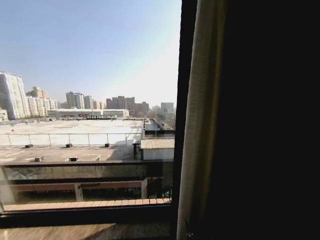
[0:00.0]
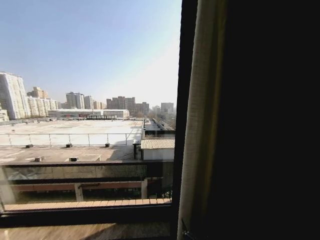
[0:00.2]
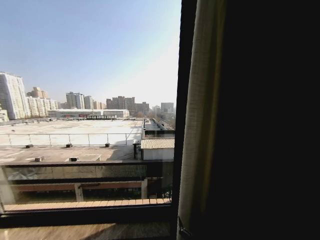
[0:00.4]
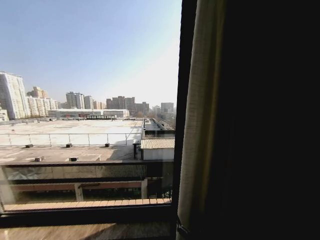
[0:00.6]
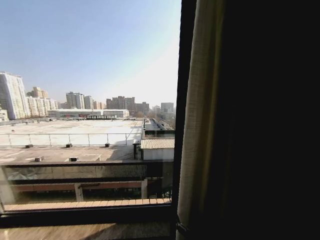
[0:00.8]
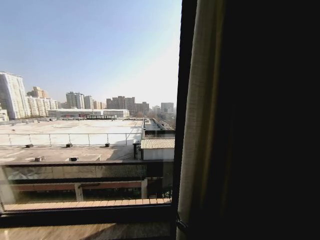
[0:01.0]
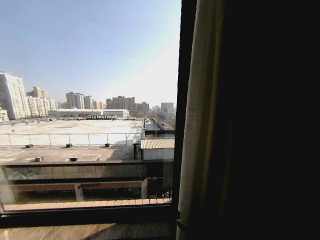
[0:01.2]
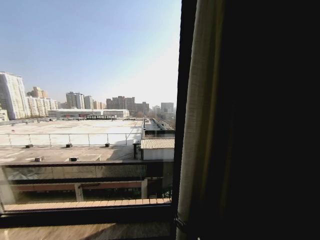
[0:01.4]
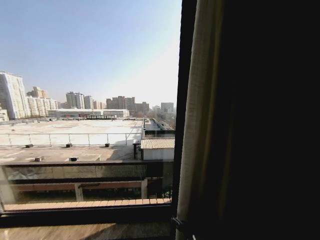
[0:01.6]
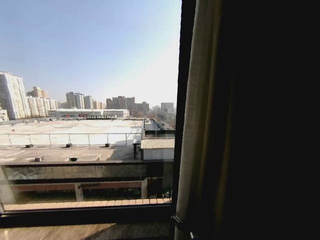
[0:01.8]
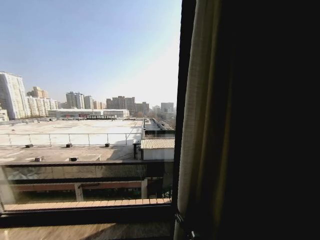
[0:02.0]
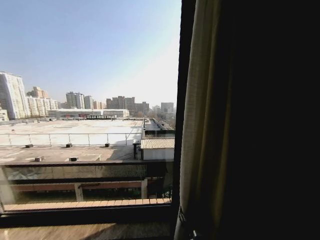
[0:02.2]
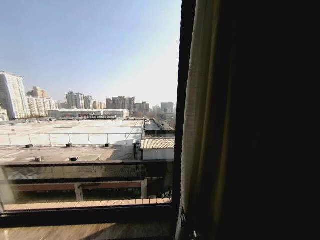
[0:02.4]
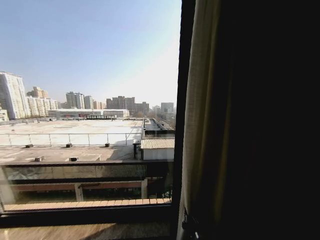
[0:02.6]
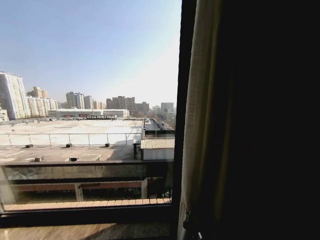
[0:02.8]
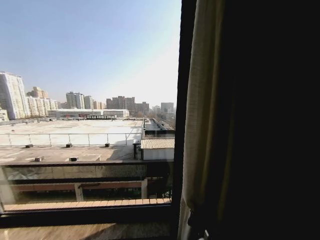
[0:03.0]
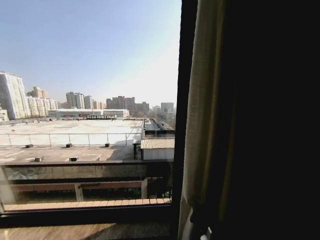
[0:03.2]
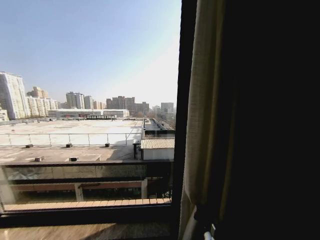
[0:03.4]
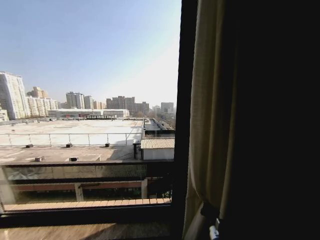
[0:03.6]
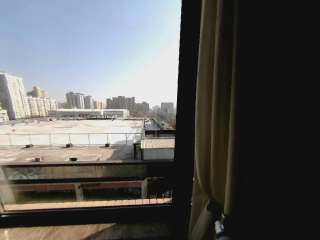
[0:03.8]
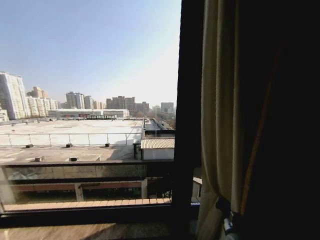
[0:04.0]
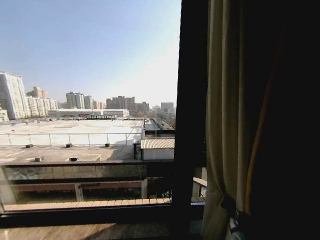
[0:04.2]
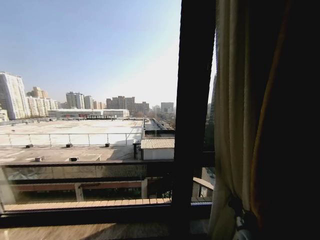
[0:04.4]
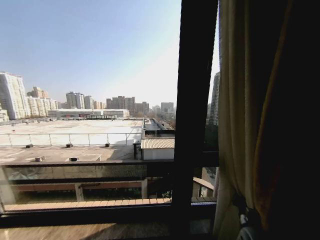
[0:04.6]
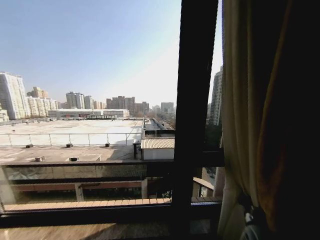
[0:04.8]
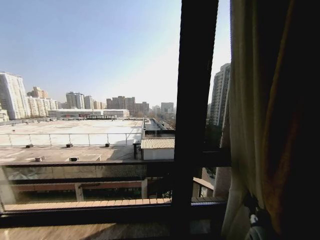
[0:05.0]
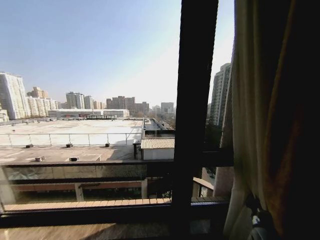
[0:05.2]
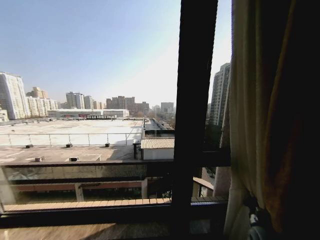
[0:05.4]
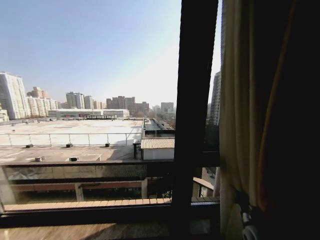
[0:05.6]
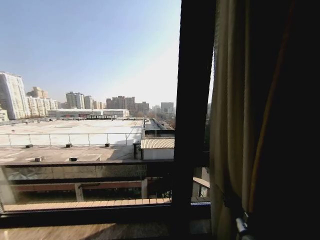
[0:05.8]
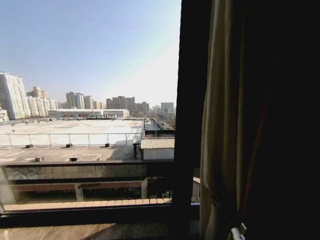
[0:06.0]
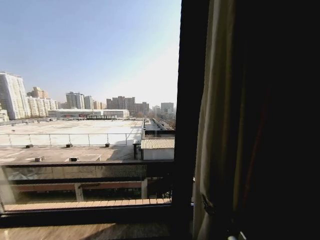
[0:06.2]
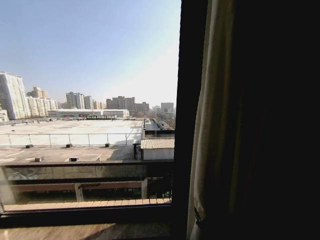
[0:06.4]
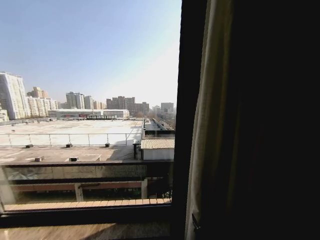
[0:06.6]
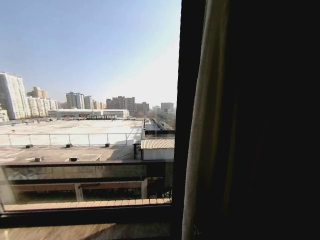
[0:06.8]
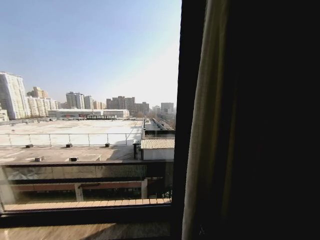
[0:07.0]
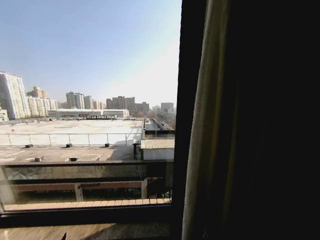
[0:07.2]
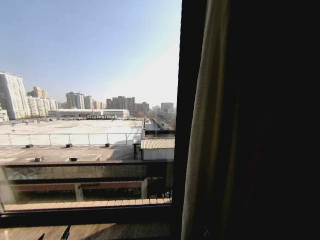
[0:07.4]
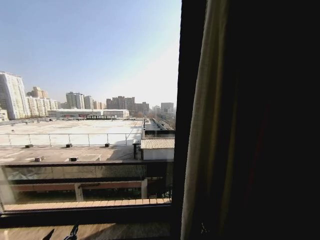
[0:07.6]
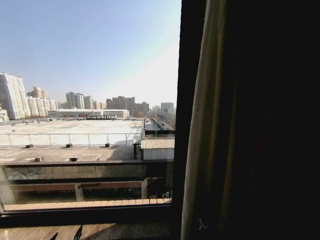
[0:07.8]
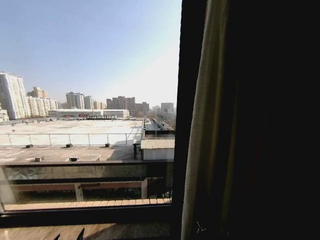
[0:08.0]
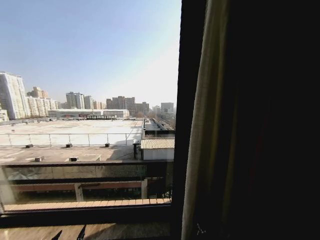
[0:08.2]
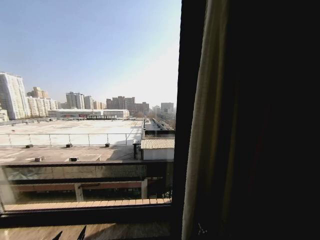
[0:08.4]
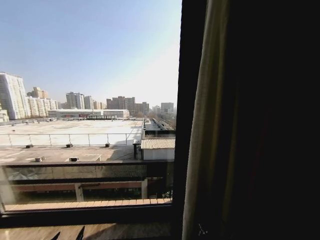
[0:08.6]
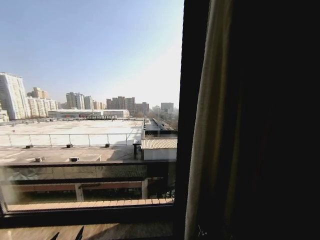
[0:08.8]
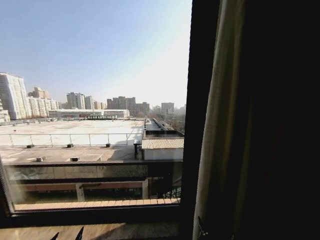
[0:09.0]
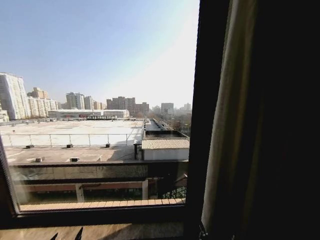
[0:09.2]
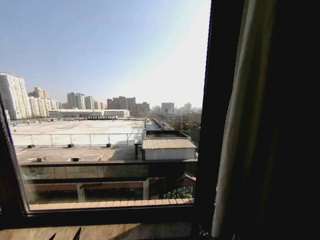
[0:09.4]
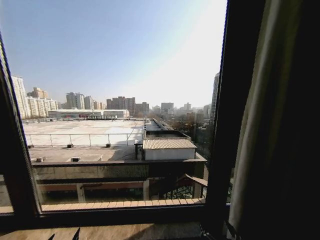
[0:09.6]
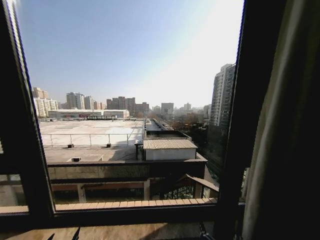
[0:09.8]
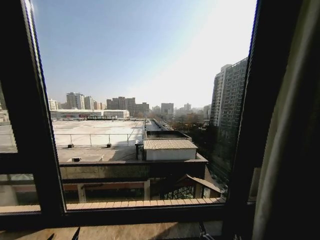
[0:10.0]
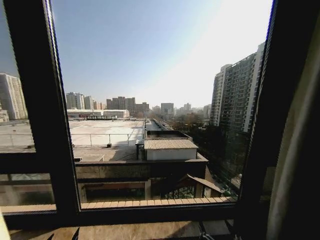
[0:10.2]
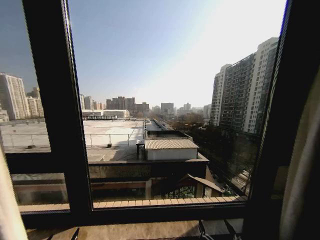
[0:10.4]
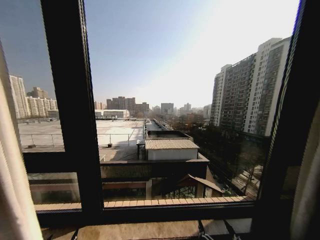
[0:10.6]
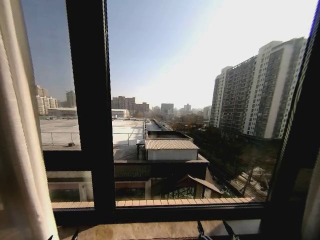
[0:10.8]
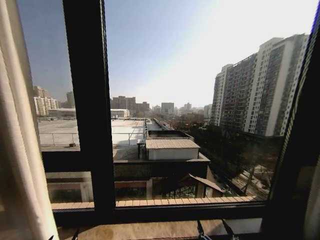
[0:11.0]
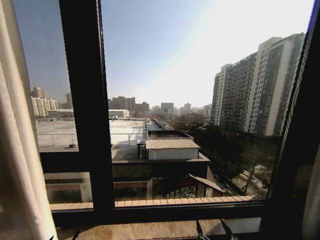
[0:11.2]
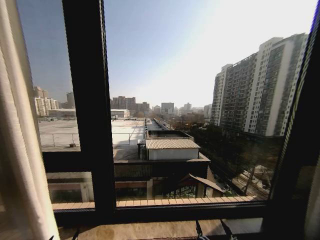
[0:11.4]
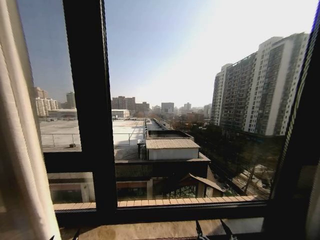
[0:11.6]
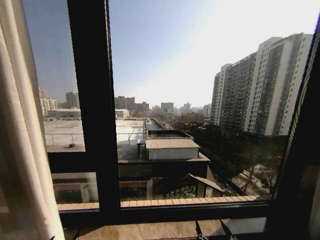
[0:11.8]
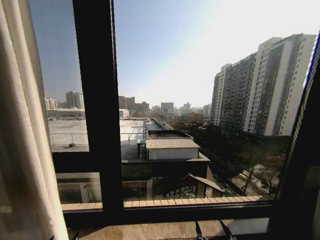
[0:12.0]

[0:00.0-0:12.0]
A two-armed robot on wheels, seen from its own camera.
Task of the whole recording: Open the curtains by pulling them apart, changing their state from closed to fully open.
0:00.0 to 0:01.6: The right gripper moves forward and to the left, some 10 cm.
0:01.6 to 0:03.0: The right gripper closes up.
0:03.0 to 0:04.4: The right gripper travels to the right and forward by roughly 25 cm.
0:04.4 to 0:06.0: The right gripper goes about 10 cm backward and to the left, and opens.
0:06.0 to 0:07.6: The left gripper shifts about 15 cm upward and forward; the right gripper shifts some 20 cm backward and to the left, and opens up.
0:07.6 to 0:09.0: The grippers stay close to where they were, moving slightly.

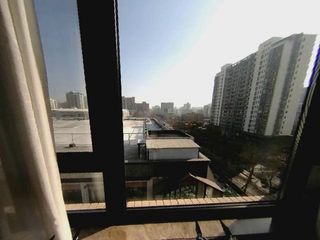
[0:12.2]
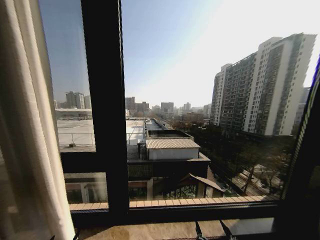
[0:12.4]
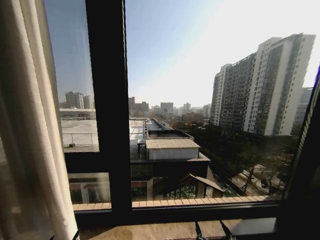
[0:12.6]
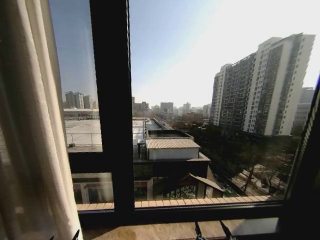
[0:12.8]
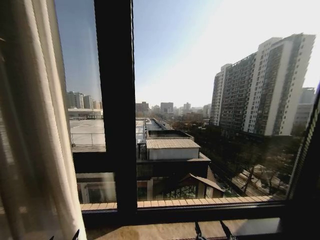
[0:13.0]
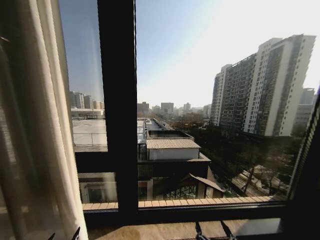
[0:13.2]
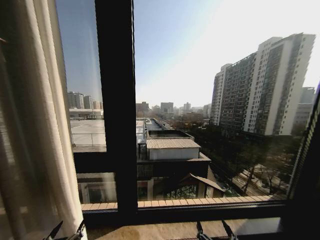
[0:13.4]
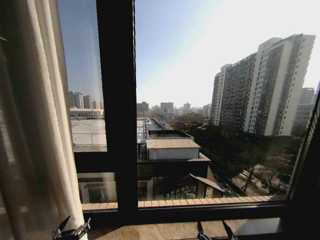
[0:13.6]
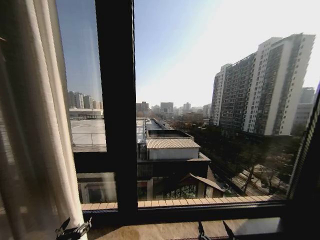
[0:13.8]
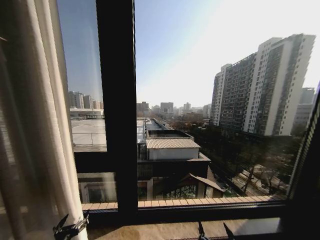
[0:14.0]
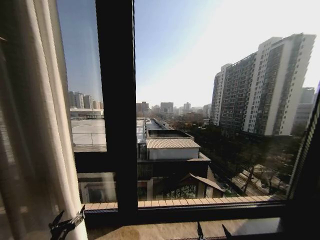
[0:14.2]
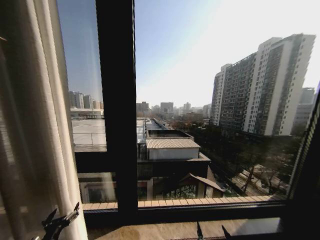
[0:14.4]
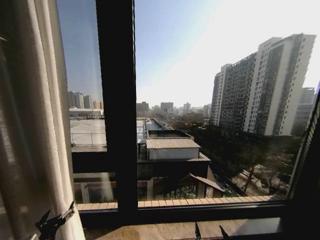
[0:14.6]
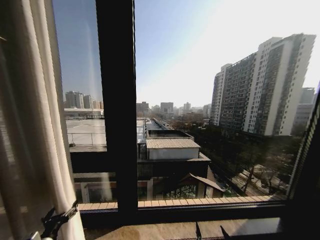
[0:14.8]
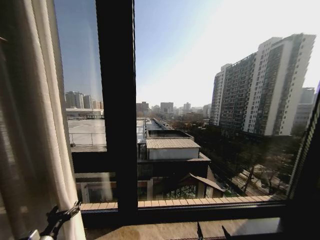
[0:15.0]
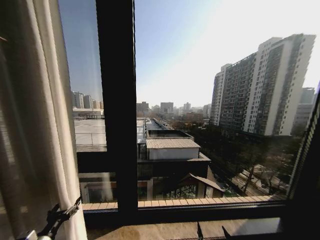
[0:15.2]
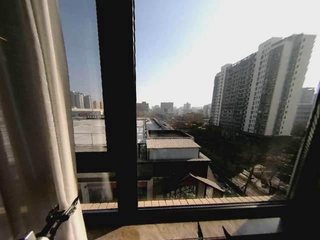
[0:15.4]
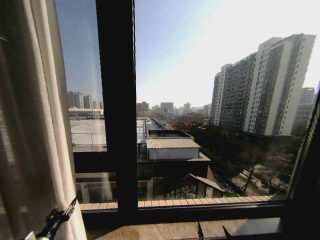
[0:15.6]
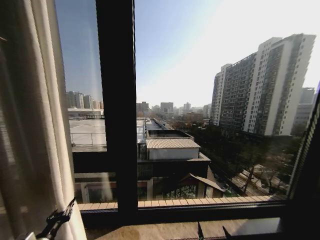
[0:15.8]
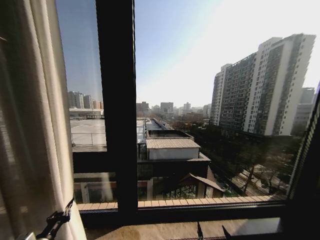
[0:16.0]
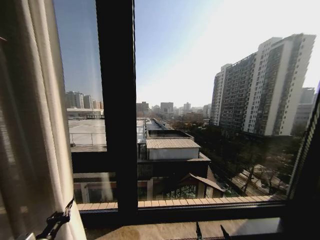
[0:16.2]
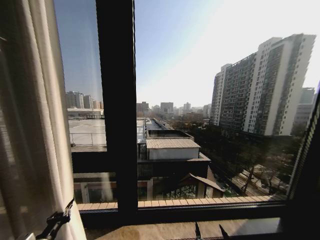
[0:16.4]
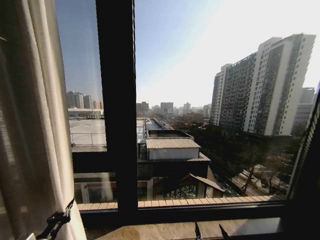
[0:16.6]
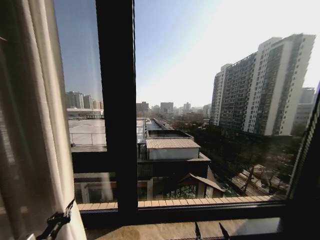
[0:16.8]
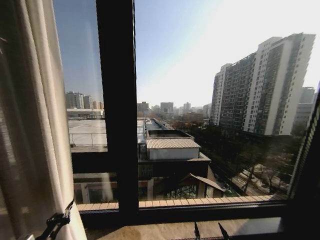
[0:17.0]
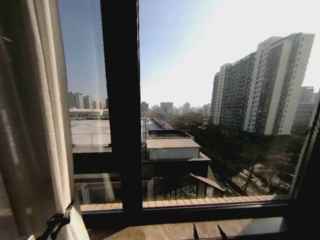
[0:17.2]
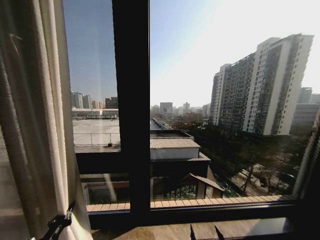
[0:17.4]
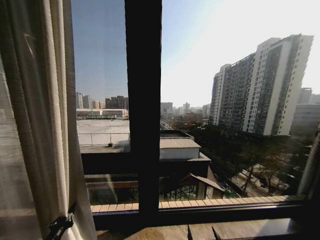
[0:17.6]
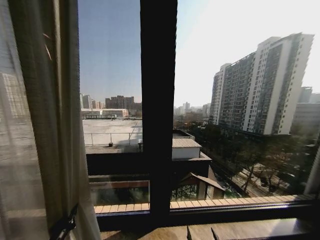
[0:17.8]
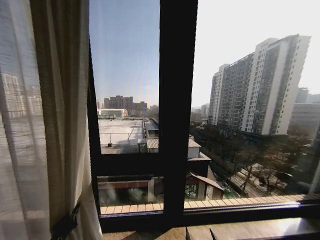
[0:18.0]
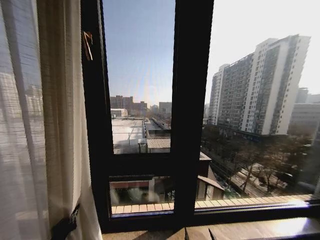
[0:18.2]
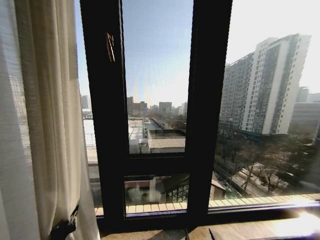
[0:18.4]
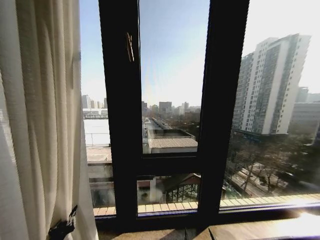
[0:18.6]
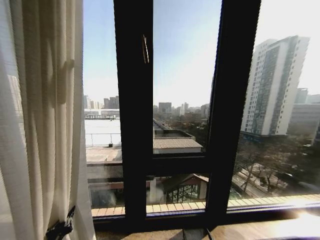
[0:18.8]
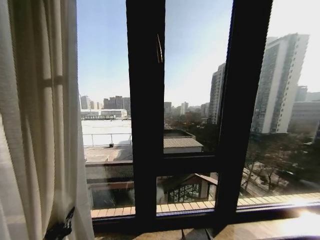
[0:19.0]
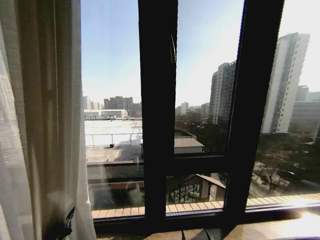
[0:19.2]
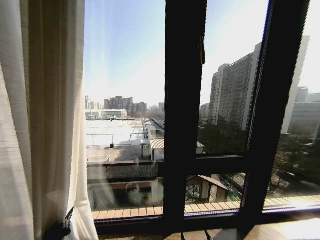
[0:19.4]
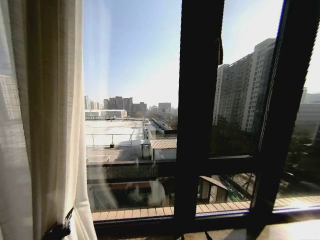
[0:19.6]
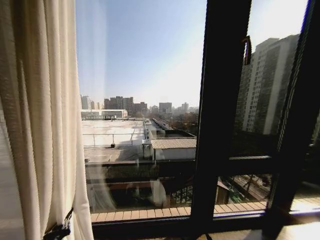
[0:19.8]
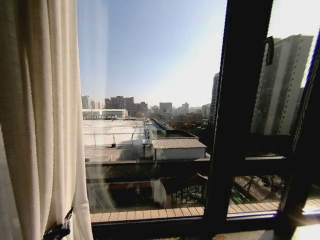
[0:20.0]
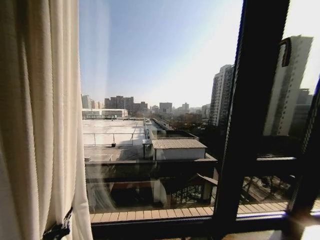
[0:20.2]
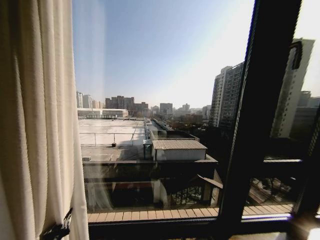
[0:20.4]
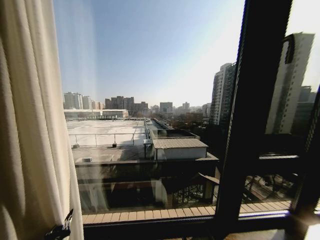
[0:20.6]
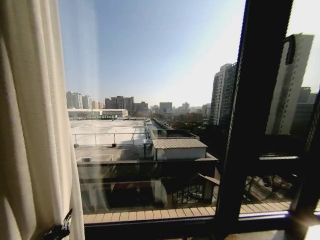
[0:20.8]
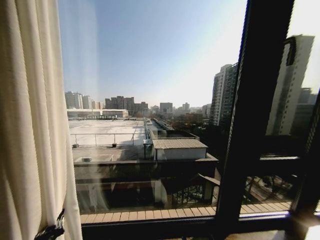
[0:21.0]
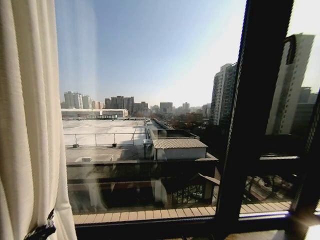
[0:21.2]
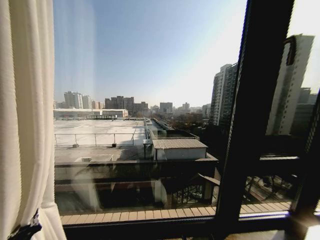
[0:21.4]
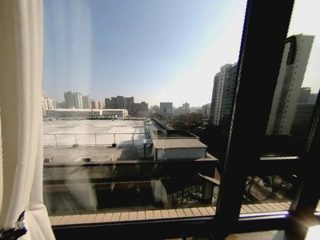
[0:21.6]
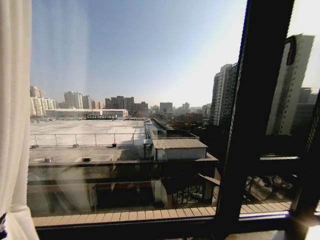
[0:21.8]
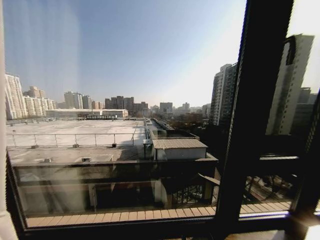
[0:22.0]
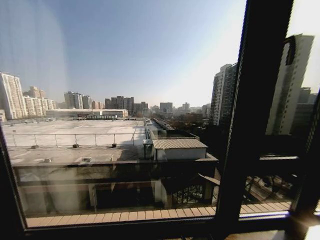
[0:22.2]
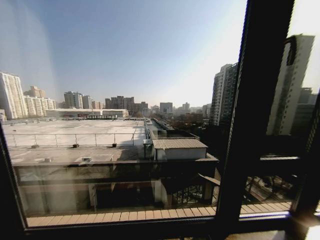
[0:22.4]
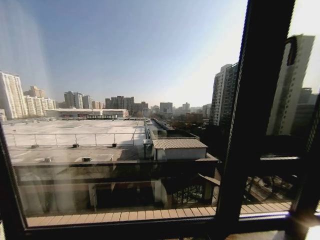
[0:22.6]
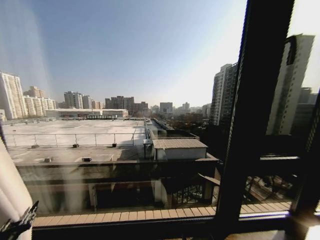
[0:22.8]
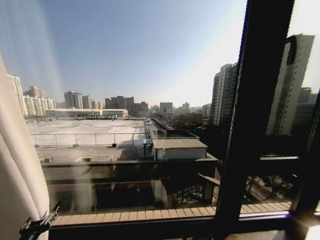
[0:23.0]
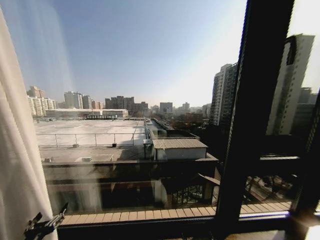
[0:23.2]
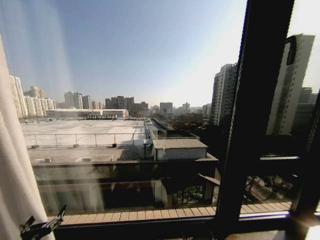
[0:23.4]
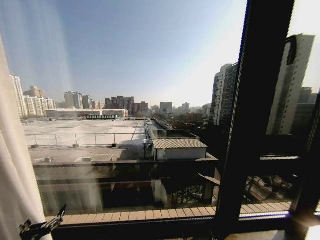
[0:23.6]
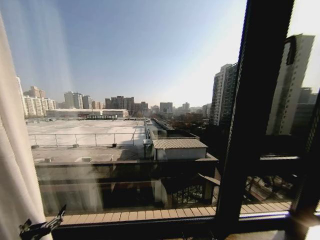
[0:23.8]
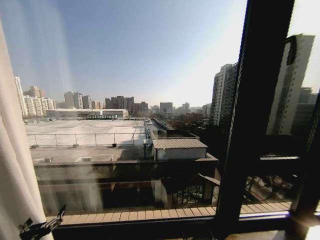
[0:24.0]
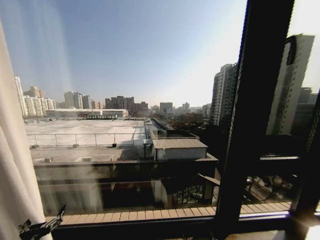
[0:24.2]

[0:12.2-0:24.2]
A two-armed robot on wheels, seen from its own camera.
Task of the whole recording: Open the curtains by pulling them apart, changing their state from closed to fully open.
0:12.2 to 0:13.8: The left gripper is displaced forward by roughly 10 cm.
0:13.8 to 0:15.2: The left gripper heads to the left and forward, covering some 10 cm.
0:15.2 to 0:16.6: The left gripper closes.
0:21.2 to 0:22.6: The left gripper heads to the left, covering approximately 15 cm.
0:22.6 to 0:24.2: The left gripper is displaced to the right by some 15 cm, and opens up.
